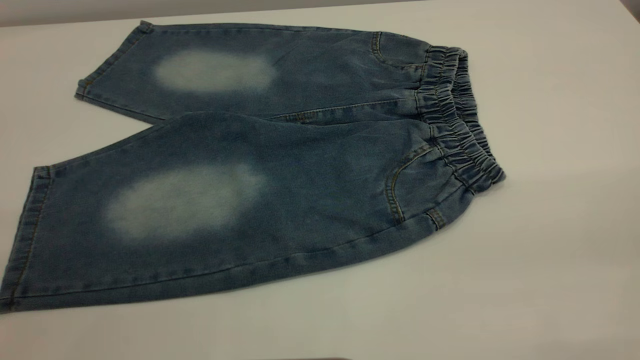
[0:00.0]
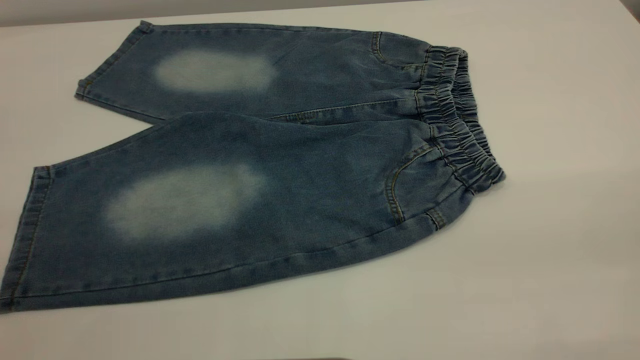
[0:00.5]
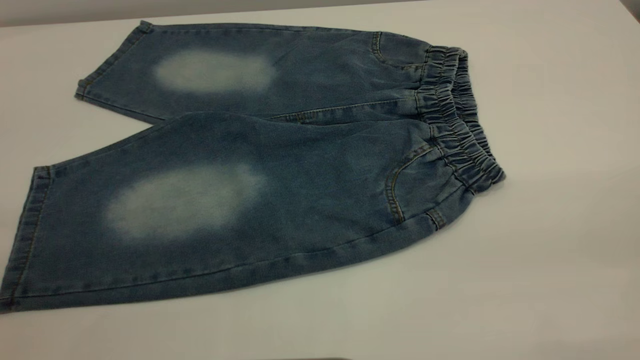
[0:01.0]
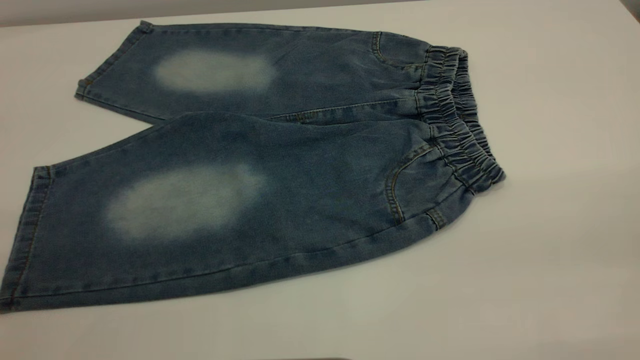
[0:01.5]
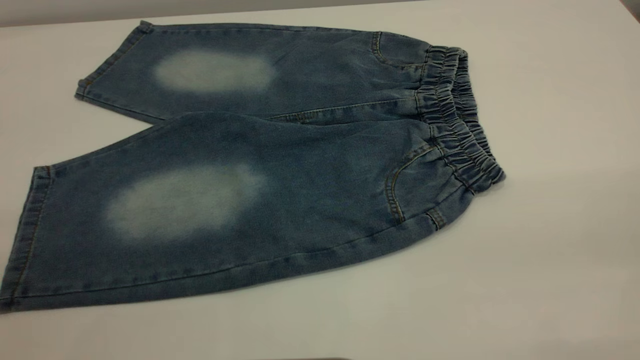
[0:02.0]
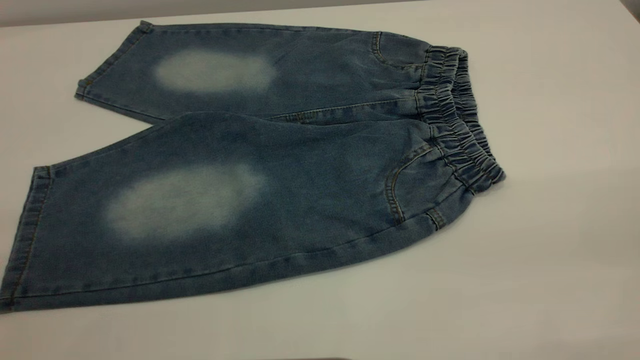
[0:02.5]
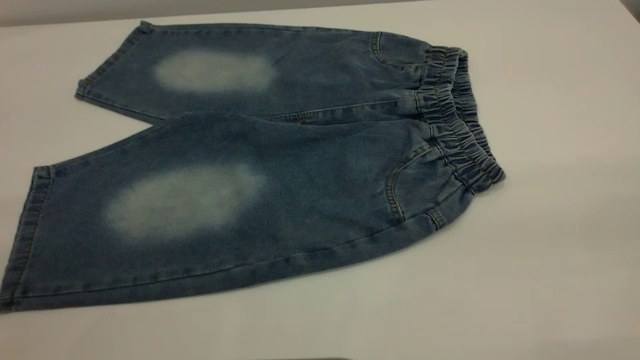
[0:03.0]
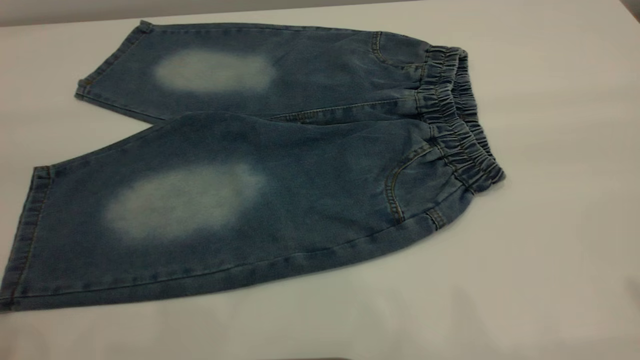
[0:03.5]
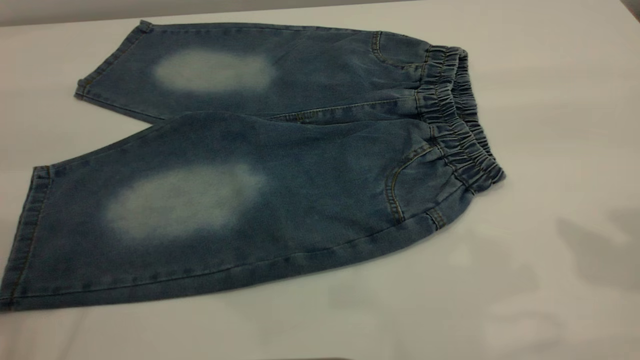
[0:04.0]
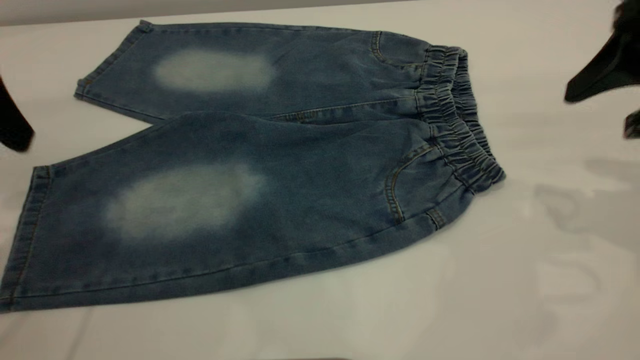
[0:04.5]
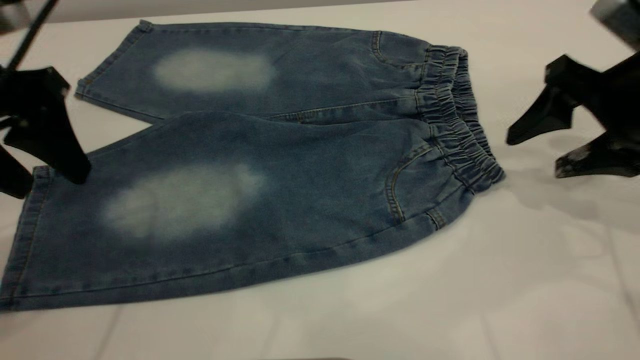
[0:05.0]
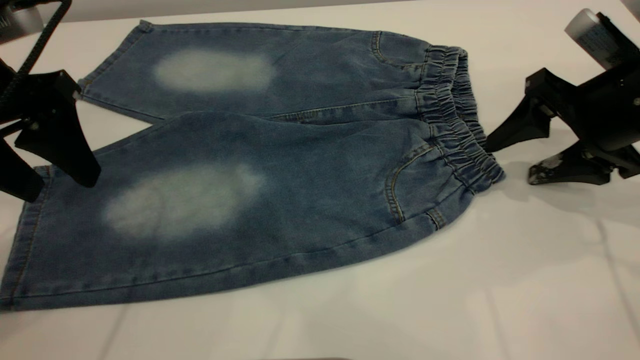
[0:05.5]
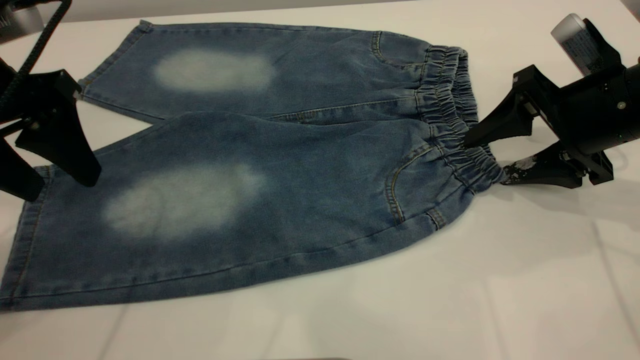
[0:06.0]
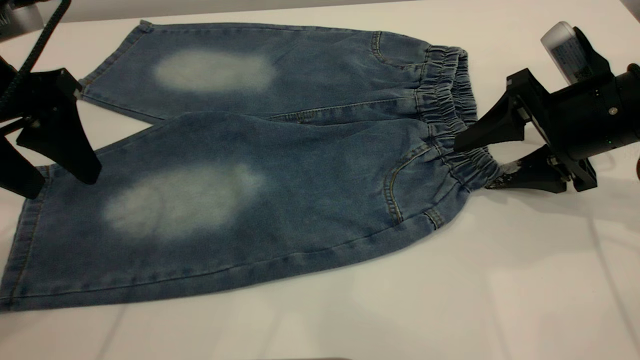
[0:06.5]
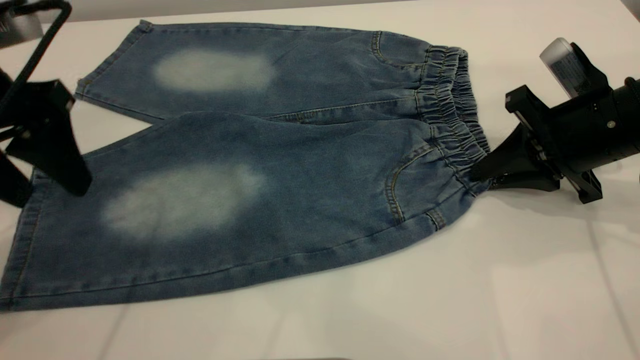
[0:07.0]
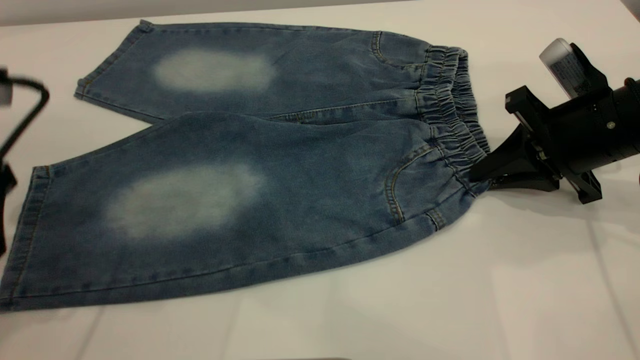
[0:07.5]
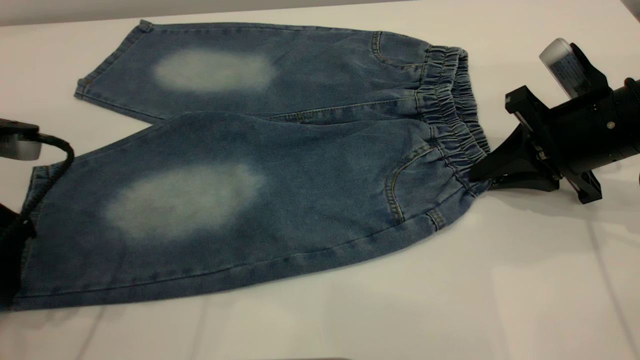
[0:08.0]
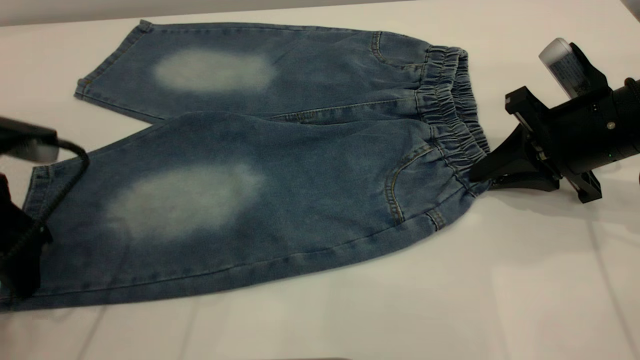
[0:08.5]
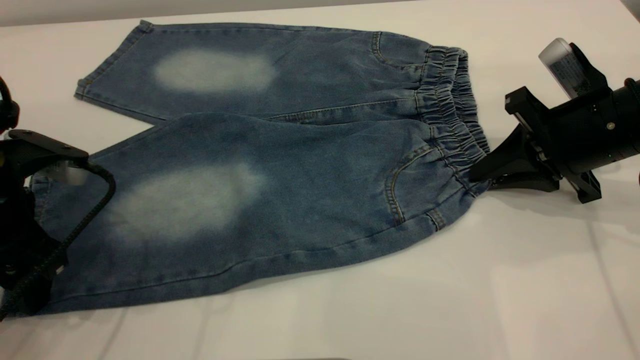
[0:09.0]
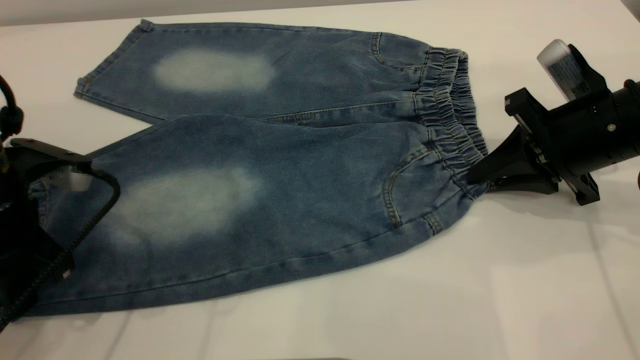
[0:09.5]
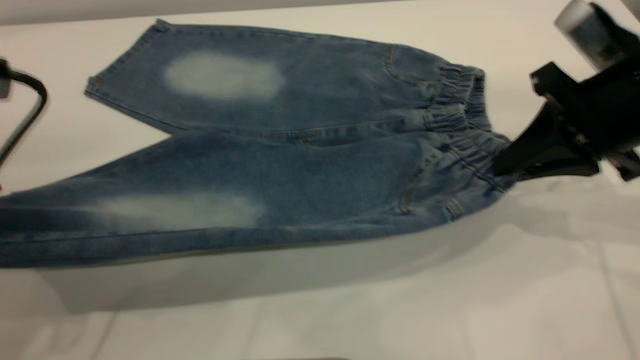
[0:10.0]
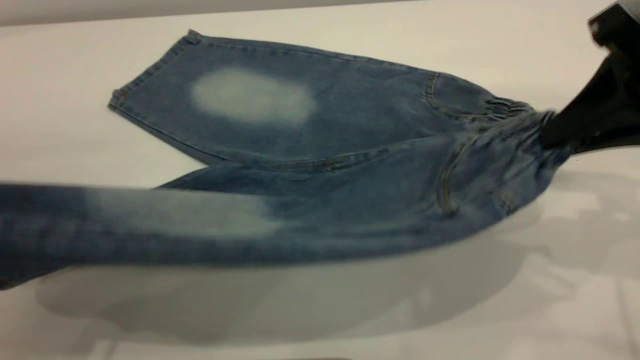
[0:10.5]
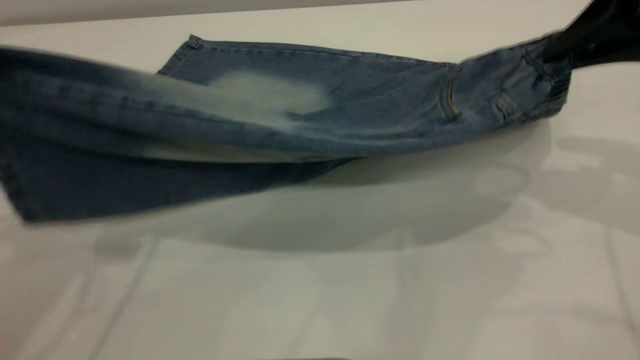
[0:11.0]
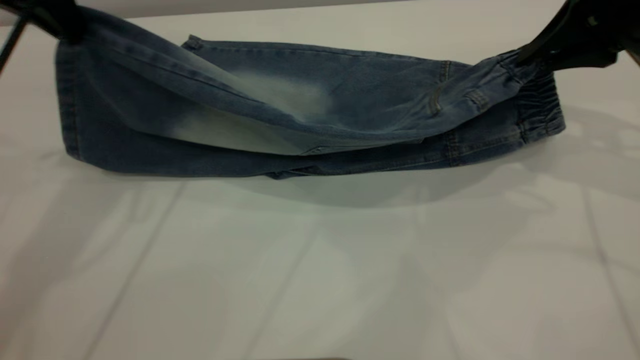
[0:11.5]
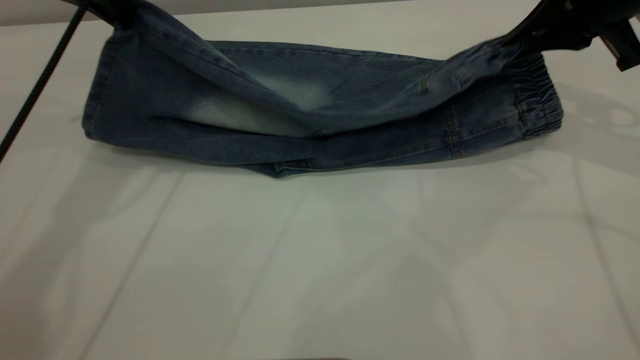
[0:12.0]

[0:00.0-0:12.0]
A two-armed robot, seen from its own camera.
0:00.0 to 0:02.0: Both grippers stay about where they are.
0:04.0 to 0:06.0: The left gripper goes some 15 cm downward and forward, while the right gripper moves downward and forward, about 20 cm.
0:06.0 to 0:08.0: The left gripper shifts approximately 5 cm downward. The right gripper closes its fingers.
0:08.0 to 0:10.0: The two grippers go about 5 cm upward. The left gripper closes its fingers.
0:10.0 to 0:12.0: The right gripper goes about 10 cm forward. Meanwhile the left gripper heads forward, covering roughly 20 cm.

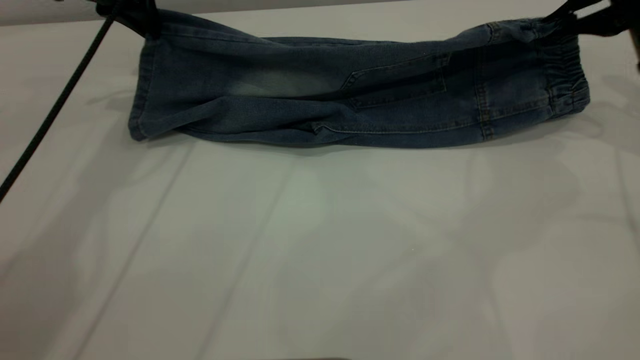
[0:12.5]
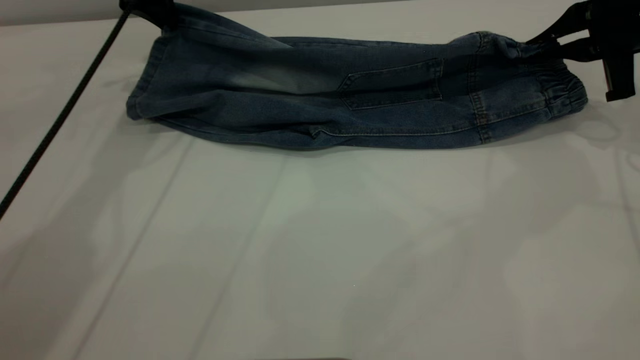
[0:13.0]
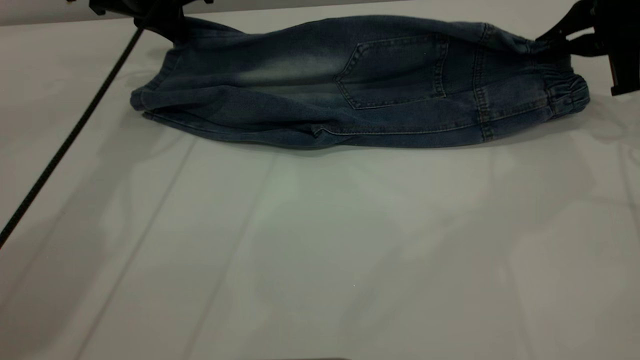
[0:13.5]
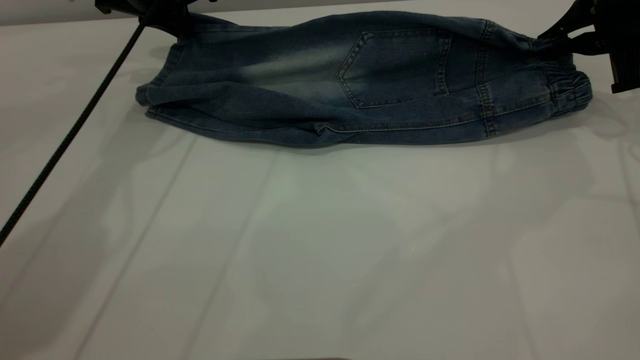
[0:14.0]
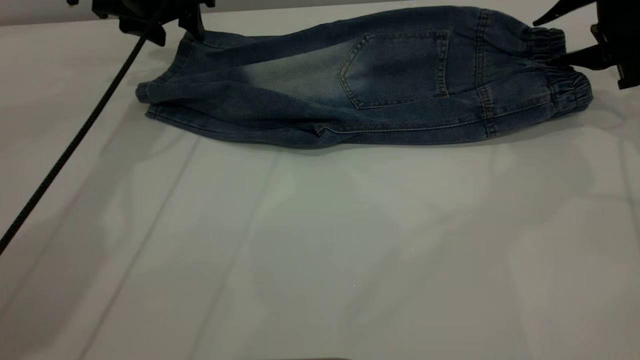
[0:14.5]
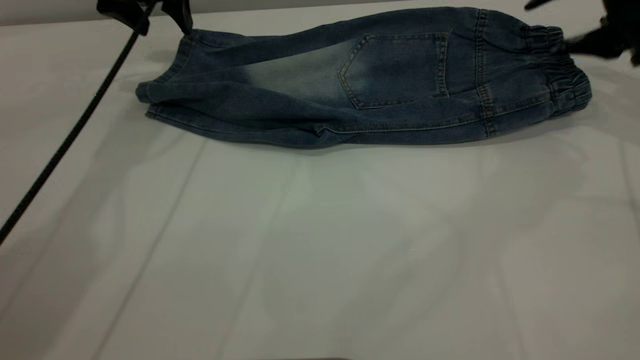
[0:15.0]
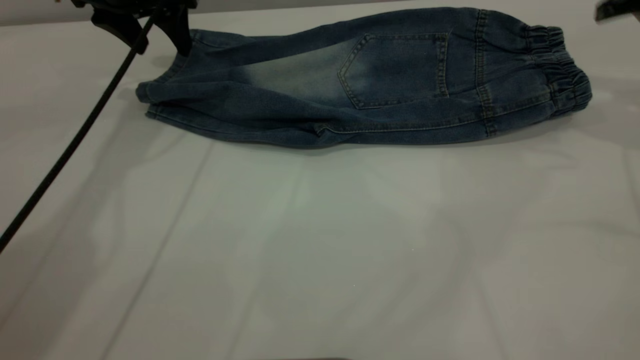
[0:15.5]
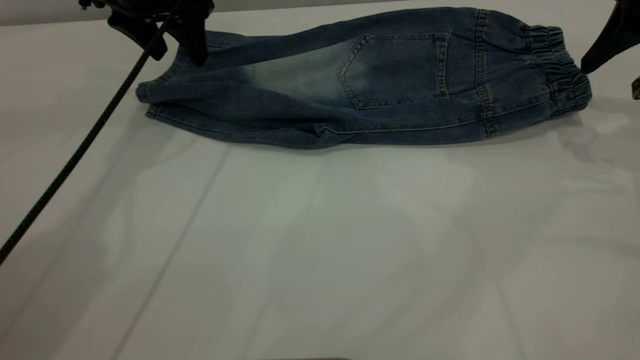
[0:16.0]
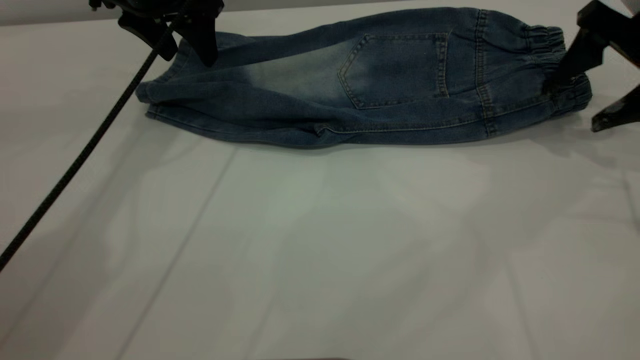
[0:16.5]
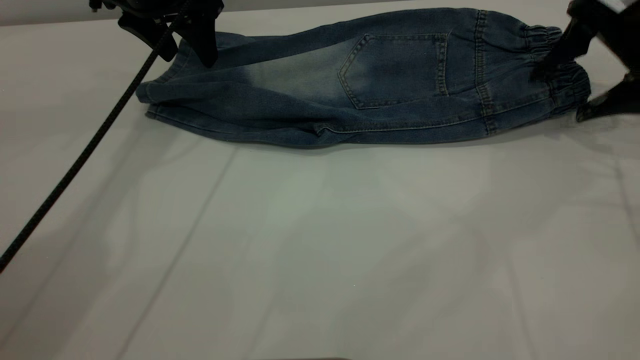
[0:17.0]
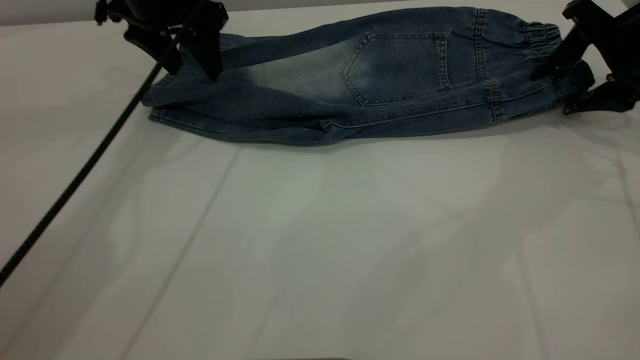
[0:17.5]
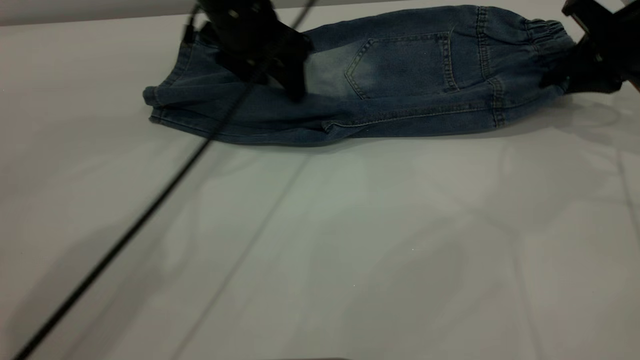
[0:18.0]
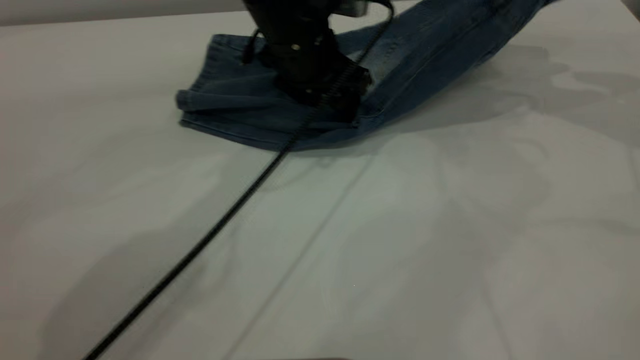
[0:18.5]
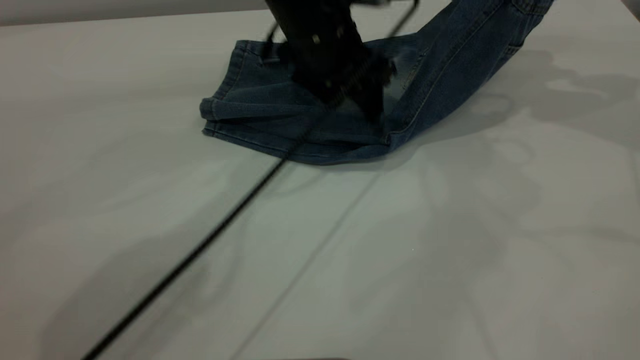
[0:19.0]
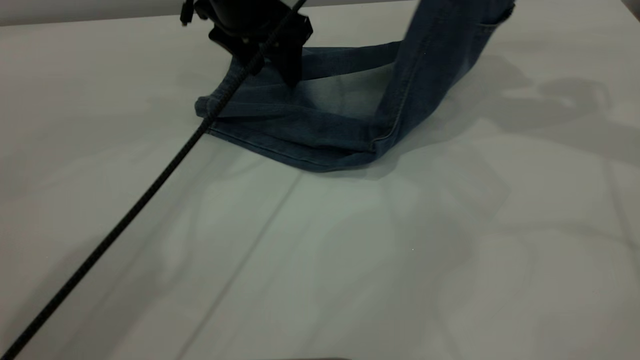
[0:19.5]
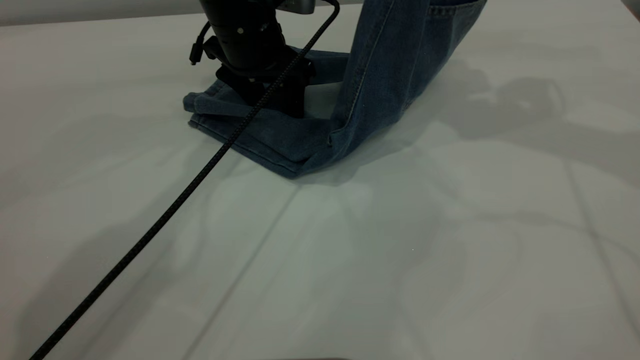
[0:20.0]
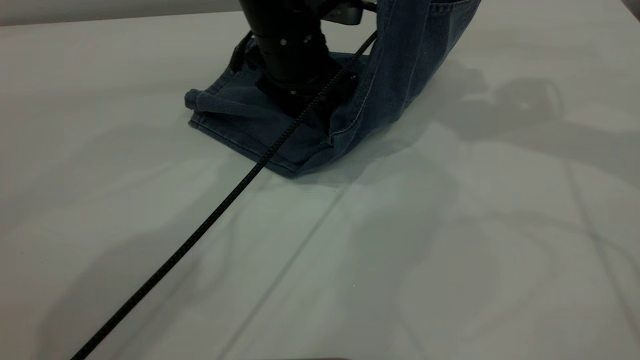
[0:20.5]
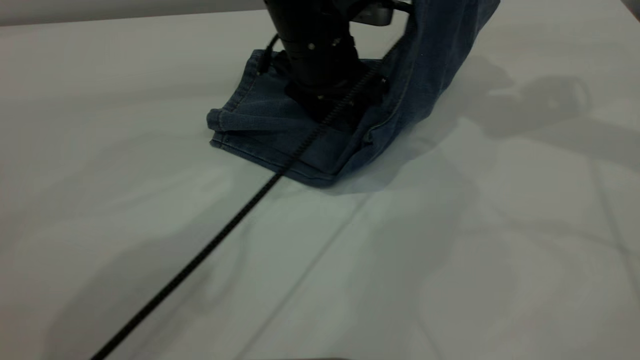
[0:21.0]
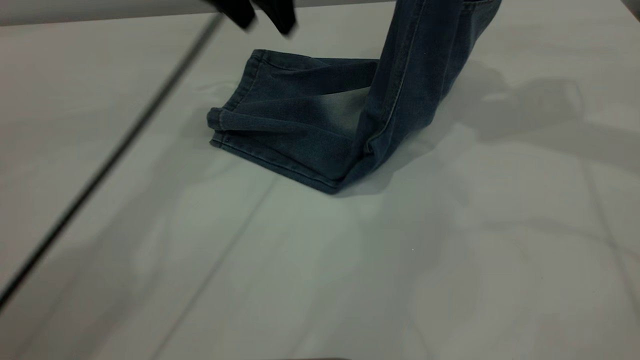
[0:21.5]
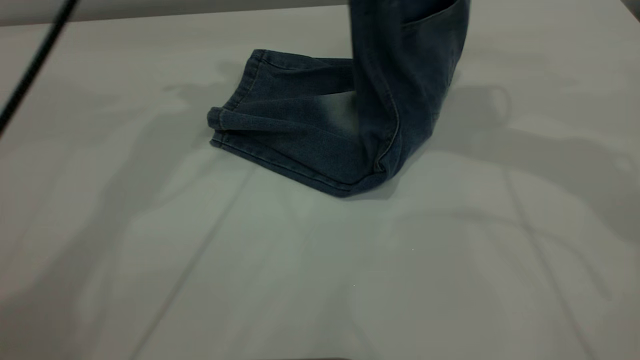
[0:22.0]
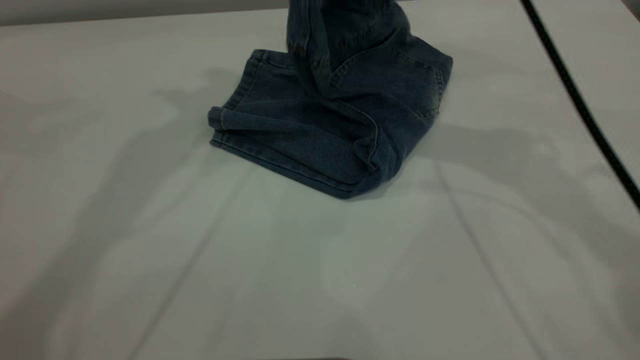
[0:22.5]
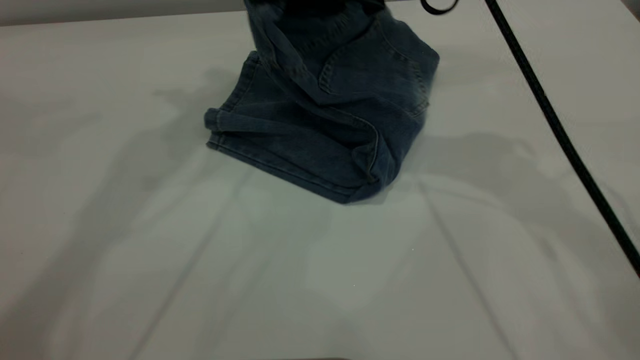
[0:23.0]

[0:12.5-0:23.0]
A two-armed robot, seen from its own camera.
Step, 0:12.5 to 0:15.0: Fold the bottom of the pants upward.
0:12.5 to 0:14.5: The left gripper changes place by about 5 cm, and opens up; the right gripper opens up.
0:14.5 to 0:16.5: The right gripper reaches about 10 cm upward, then returns, while the left gripper moves some 5 cm.
0:16.5 to 0:19.0: The left gripper moves to the right, approximately 15 cm; the right gripper is displaced upward by about 10 cm, and closes up.
0:19.0 to 0:21.0: The right gripper goes about 5 cm to the left.
0:21.0 to 0:23.0: The left gripper moves upward and to the left, about 30 cm; the right gripper heads to the left and downward, covering roughly 20 cm.
